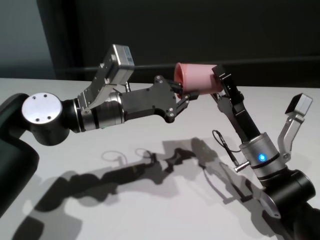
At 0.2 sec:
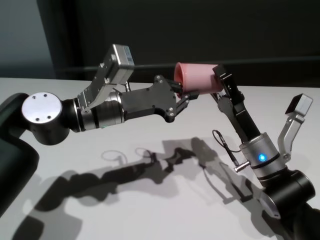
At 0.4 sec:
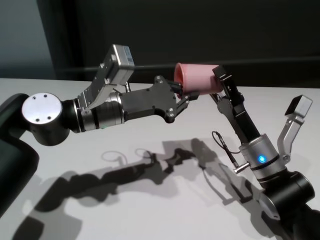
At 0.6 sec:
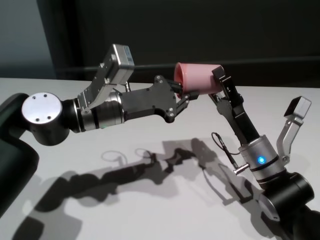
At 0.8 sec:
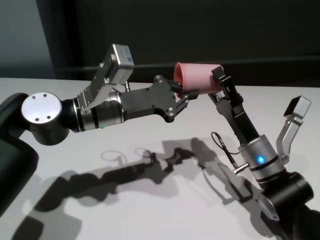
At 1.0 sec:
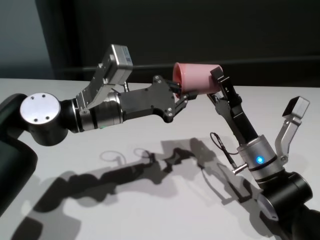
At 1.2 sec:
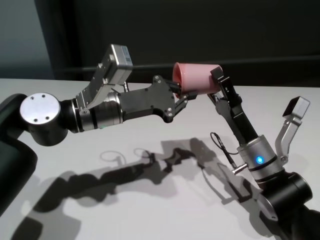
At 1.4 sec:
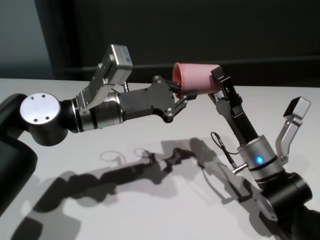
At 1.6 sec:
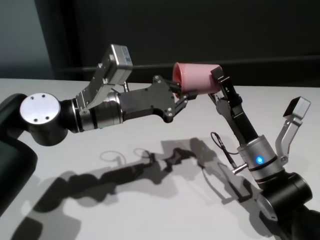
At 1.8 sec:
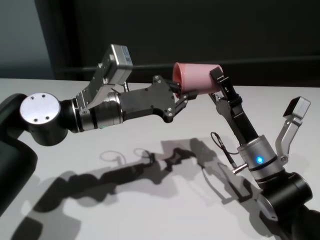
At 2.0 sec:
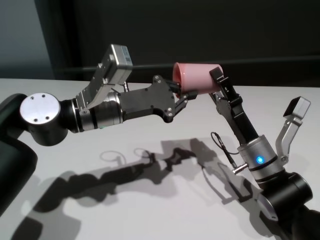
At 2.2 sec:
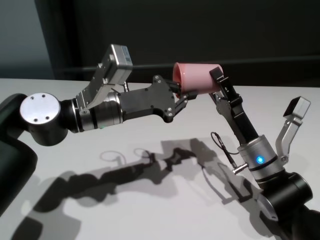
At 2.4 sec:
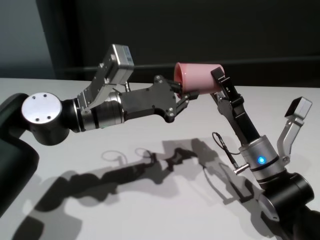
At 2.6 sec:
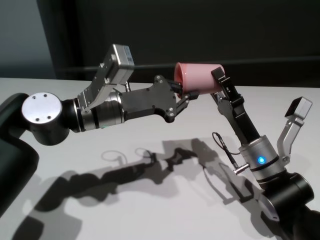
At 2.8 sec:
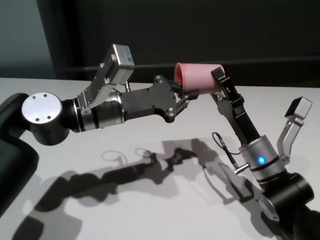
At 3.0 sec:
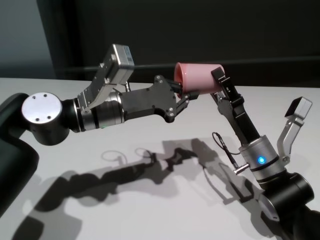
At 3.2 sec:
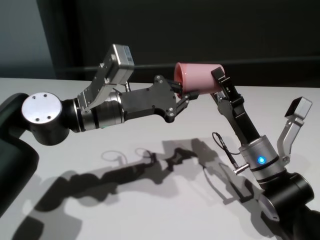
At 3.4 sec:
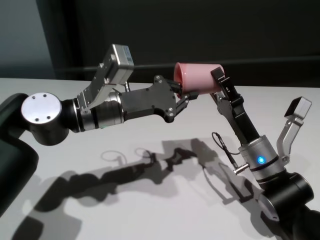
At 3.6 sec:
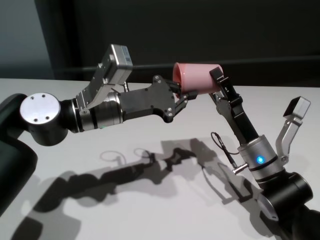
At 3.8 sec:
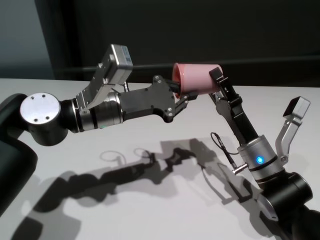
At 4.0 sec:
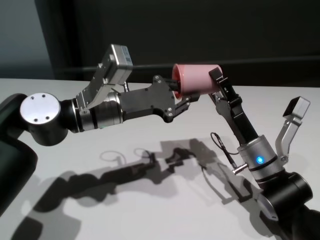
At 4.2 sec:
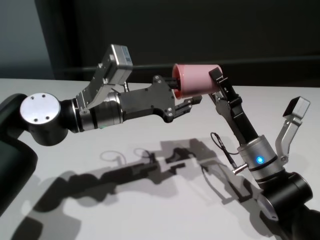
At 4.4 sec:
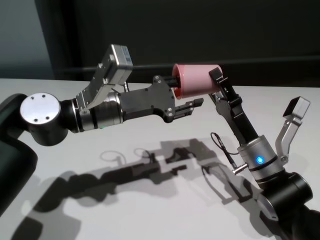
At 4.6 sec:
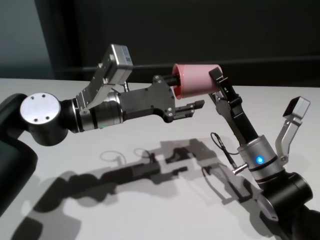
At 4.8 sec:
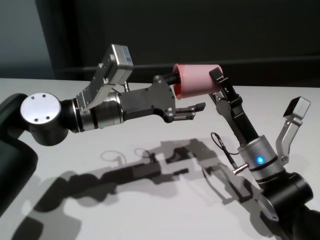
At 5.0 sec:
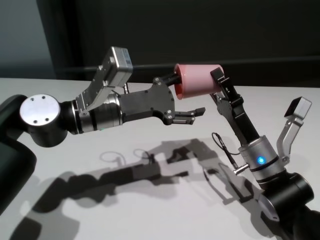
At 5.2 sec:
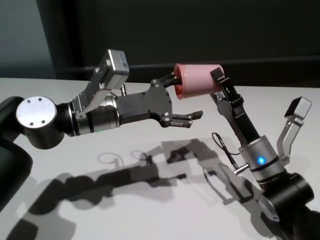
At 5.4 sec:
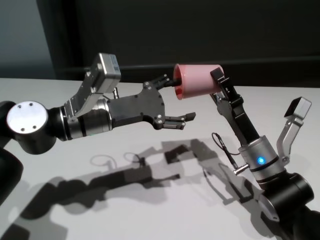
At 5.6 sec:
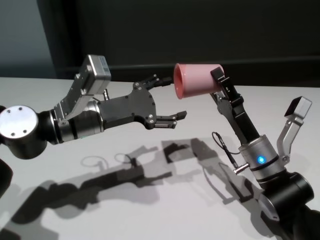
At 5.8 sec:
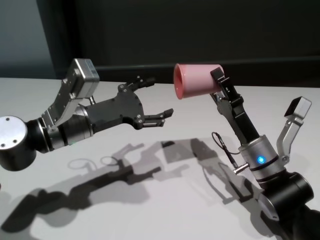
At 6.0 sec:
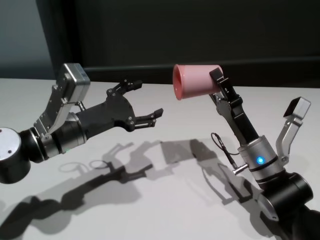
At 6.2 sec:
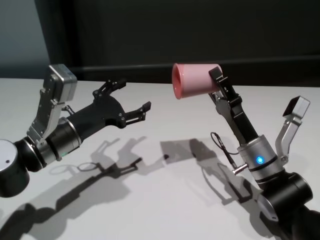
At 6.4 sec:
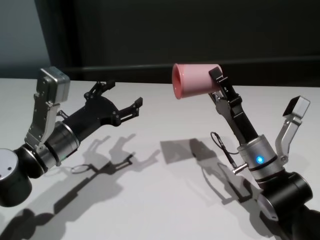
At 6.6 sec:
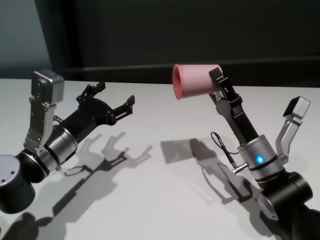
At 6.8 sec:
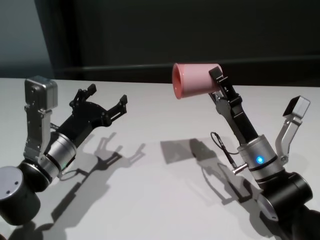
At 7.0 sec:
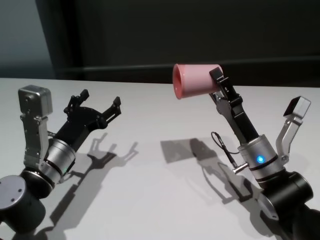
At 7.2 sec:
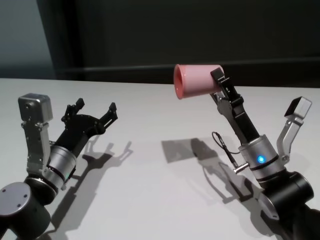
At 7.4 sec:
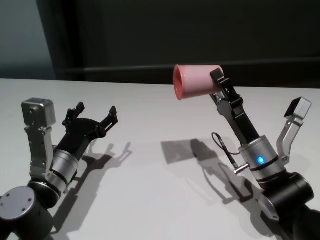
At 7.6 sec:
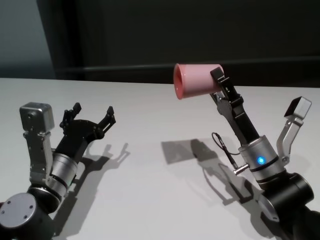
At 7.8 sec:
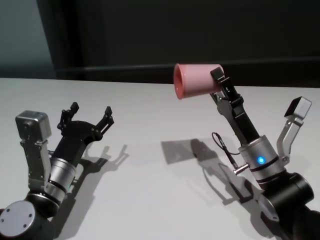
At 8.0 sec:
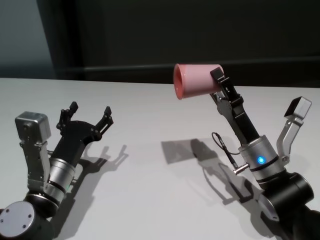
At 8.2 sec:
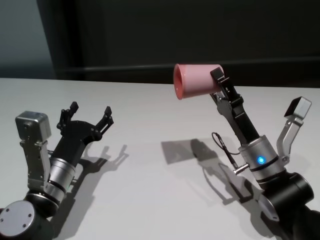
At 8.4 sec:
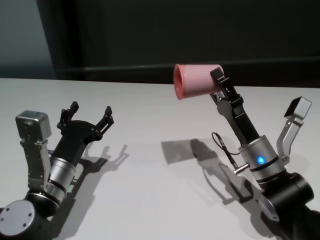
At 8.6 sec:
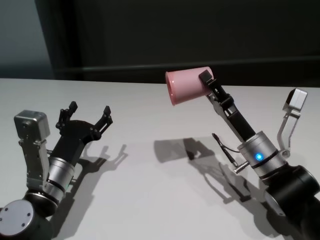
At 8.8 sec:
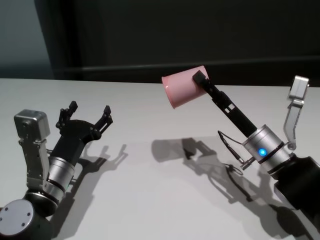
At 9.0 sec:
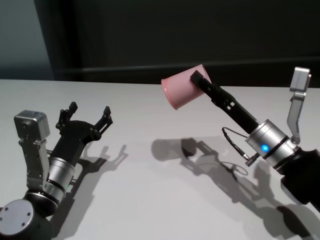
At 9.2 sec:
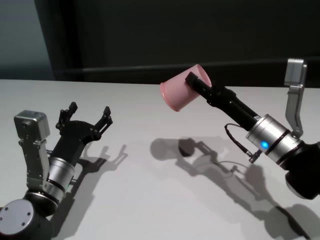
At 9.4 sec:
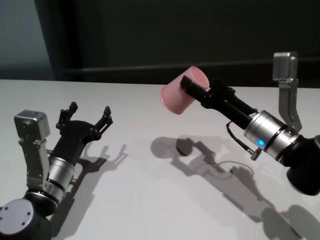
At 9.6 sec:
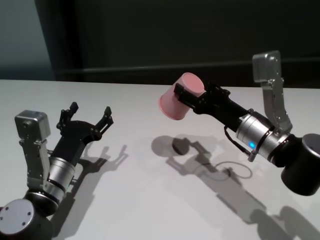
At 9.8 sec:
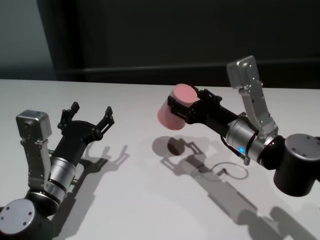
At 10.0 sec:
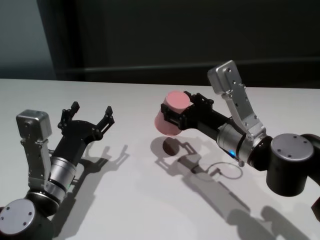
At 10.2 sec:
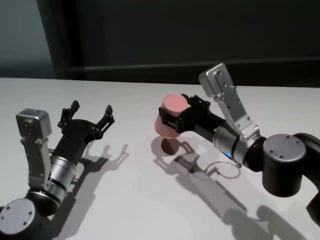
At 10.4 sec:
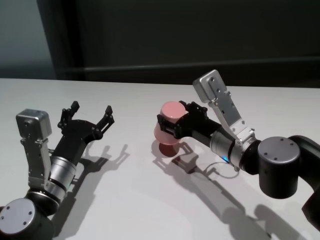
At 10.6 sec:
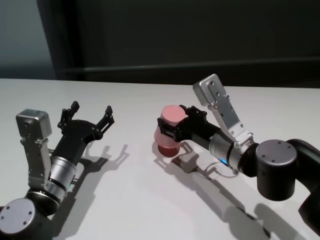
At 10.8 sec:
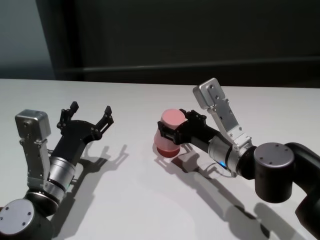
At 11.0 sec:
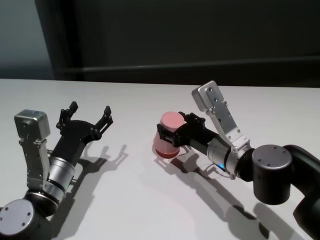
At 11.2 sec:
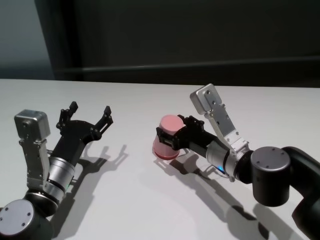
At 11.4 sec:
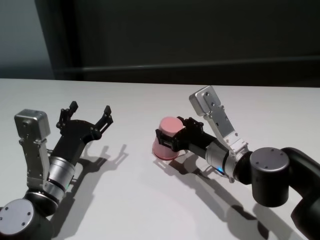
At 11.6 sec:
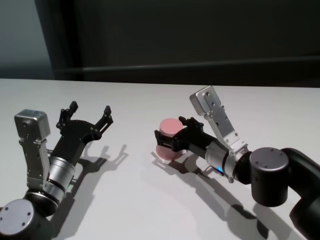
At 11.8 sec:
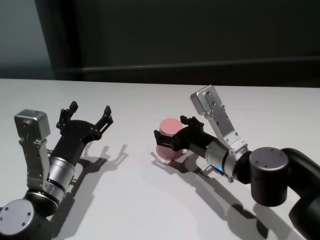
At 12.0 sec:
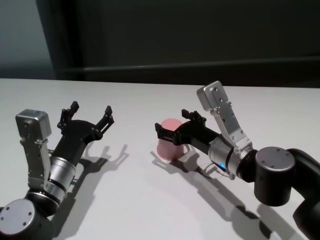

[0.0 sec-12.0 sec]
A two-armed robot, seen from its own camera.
Task of the whole recording: On the white table pick up the cup with one hand and transfer it to the other hand before turning it over.
Step, 0.0 sec to 5.4 sec: Pass the cup to the right gripper.
